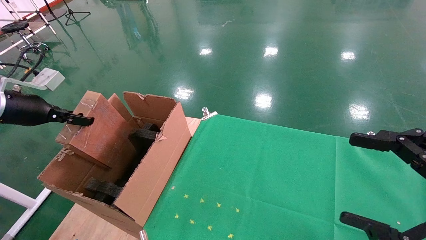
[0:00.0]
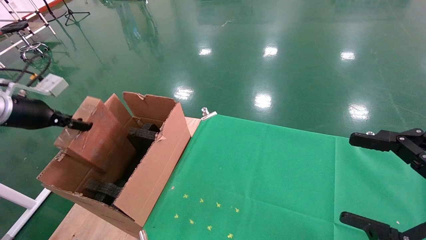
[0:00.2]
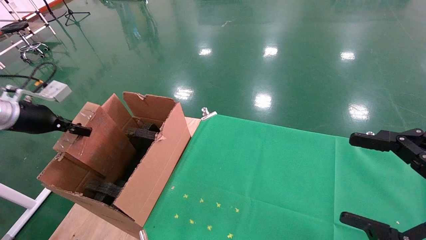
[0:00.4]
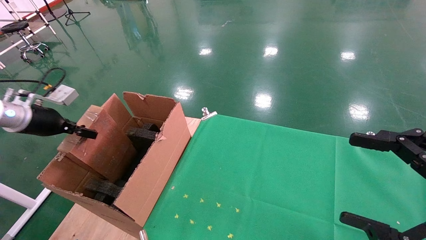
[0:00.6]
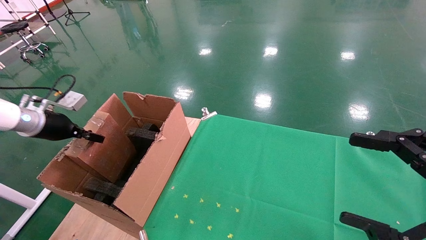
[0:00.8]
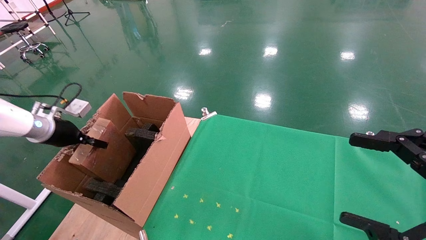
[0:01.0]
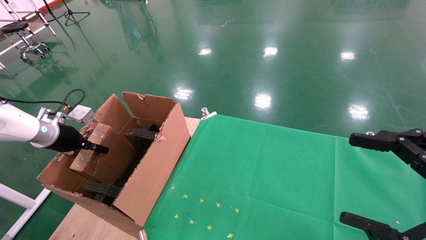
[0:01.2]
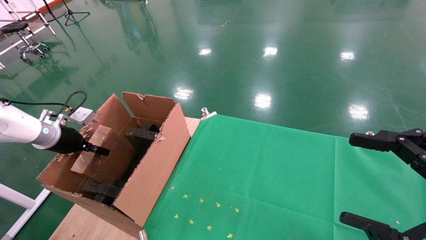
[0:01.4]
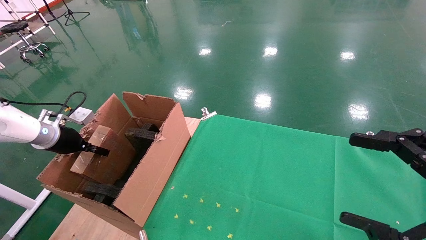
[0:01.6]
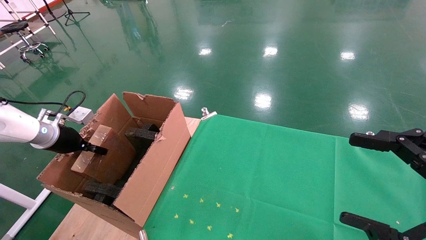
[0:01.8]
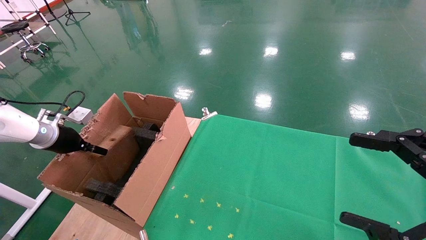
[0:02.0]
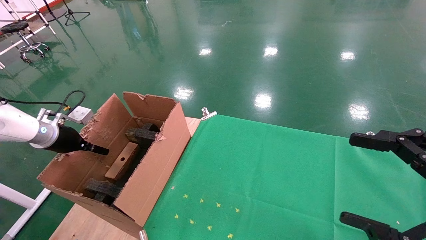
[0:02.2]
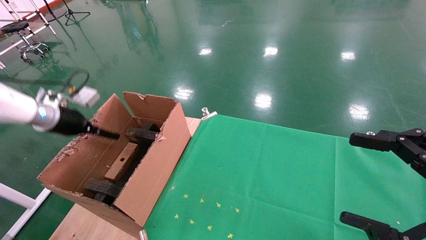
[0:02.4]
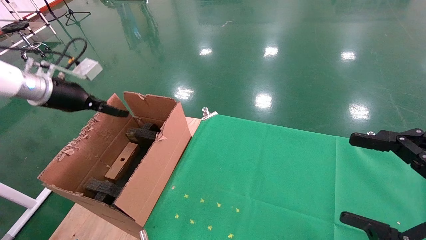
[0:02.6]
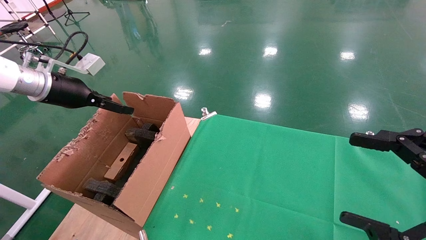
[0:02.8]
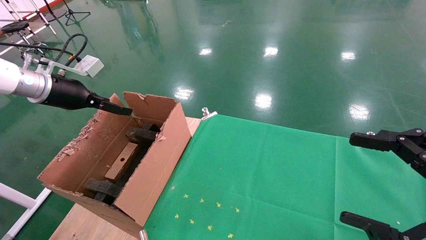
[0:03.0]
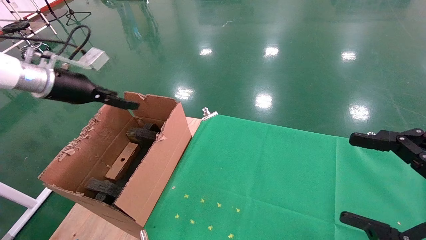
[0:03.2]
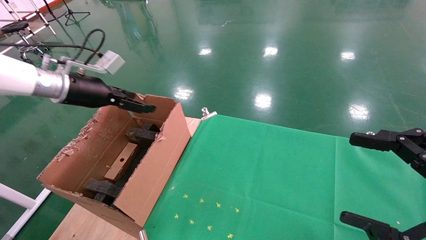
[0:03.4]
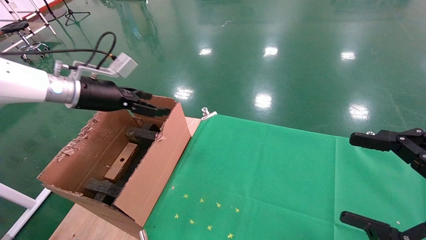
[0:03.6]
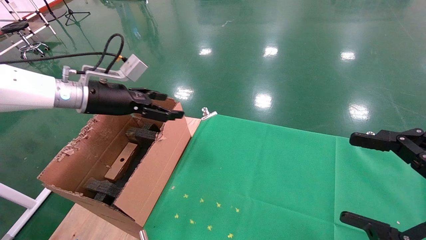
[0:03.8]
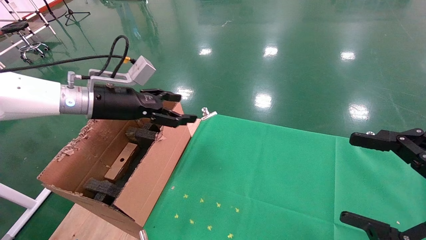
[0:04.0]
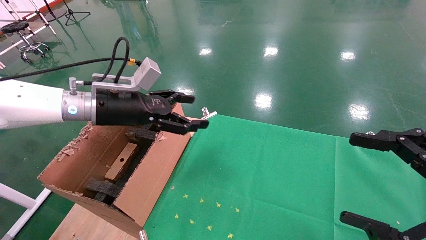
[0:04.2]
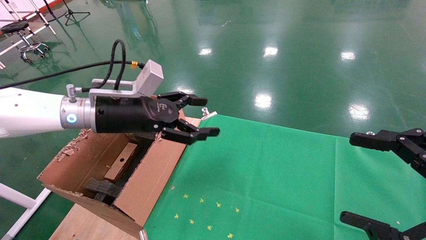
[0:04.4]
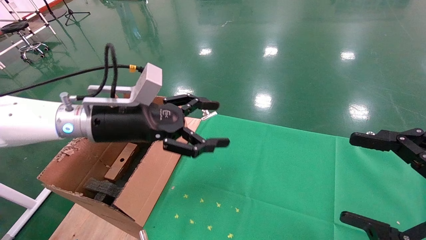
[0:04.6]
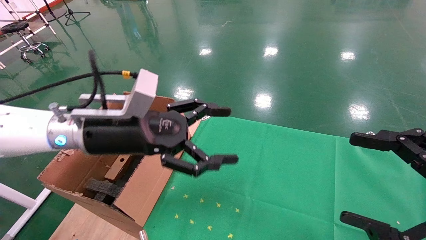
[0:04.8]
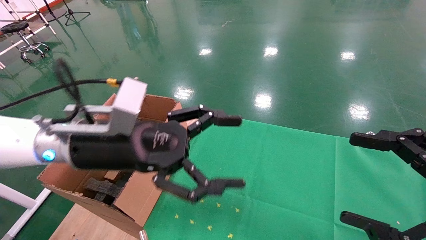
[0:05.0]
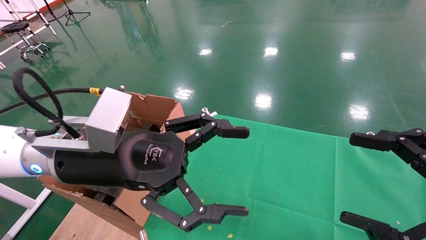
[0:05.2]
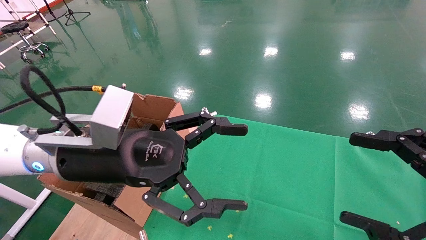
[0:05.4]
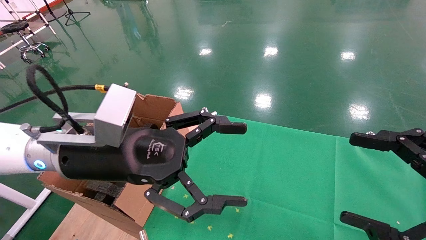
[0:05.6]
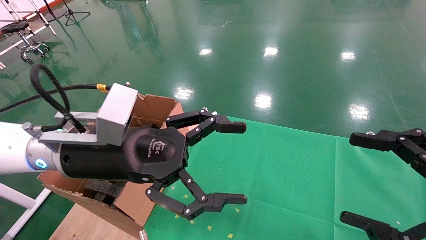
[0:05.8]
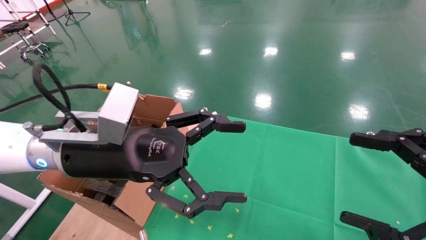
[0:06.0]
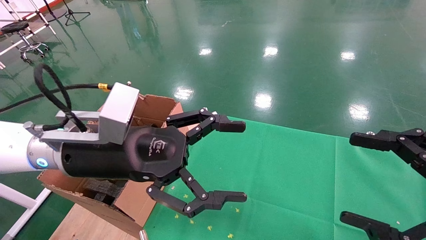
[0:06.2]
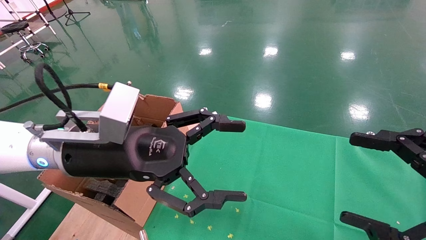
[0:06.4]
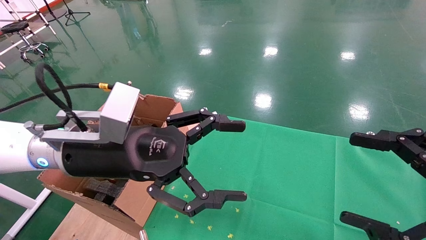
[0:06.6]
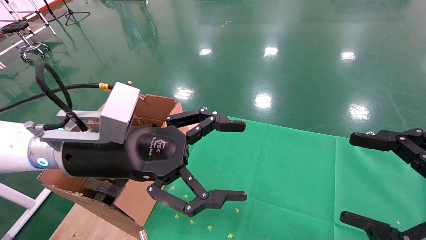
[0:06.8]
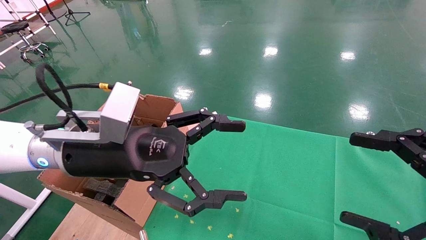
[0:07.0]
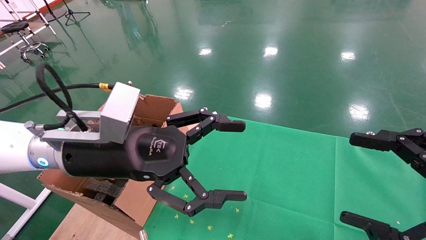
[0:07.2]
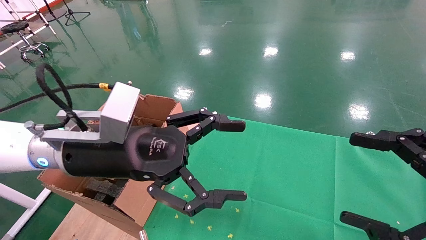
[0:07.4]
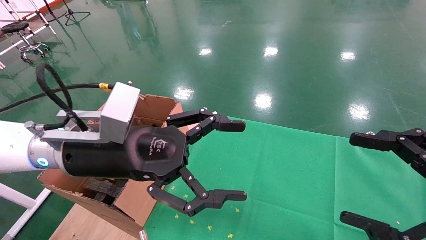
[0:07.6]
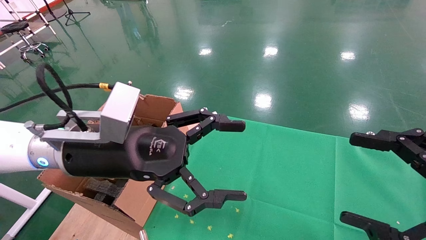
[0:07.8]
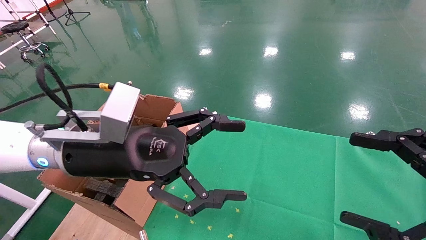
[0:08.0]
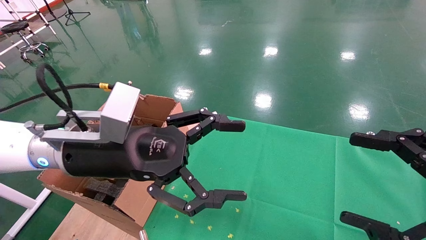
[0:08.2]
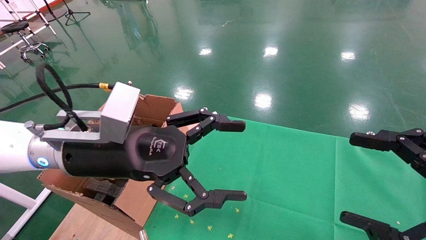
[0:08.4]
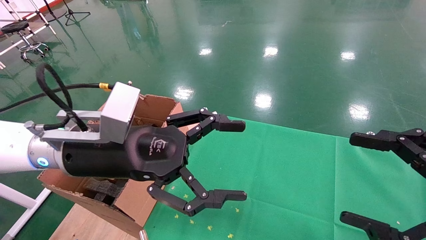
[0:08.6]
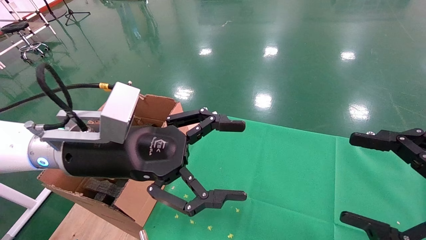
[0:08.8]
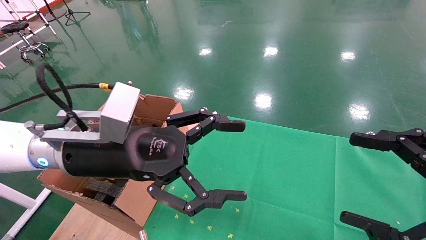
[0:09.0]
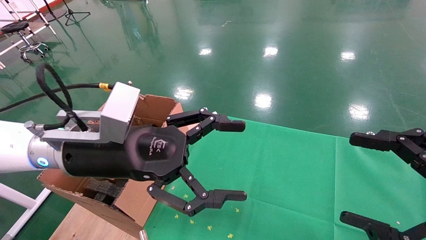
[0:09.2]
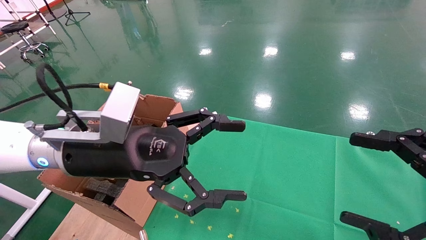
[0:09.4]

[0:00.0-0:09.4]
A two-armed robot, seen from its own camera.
Task of the whole recording: using a robotic arm to pick up a cardboard box and palace it the carton.
Step, 0:00.0 to 0:01.8: Place the mouse and the power cord paper box into the container.
0:00.0 to 0:01.6: The left gripper moves downward and forward, approximately 15 cm.
0:01.6 to 0:03.2: The left gripper shifts approximately 15 cm upward and to the right, and opens up.
0:03.2 to 0:04.8: The left gripper goes roughly 20 cm to the right and backward.
0:04.8 to 0:06.2: There are only small adjustments of the grippers.
0:06.2 to 0:09.4: The two grippers keep their place.

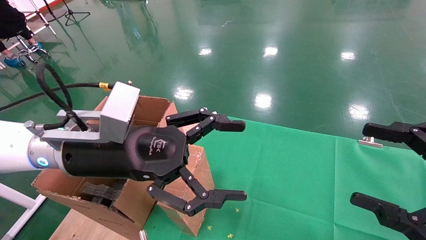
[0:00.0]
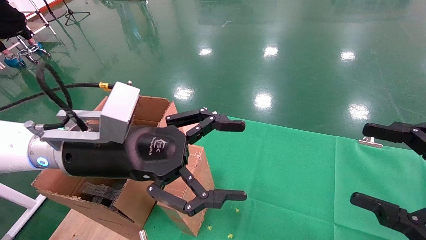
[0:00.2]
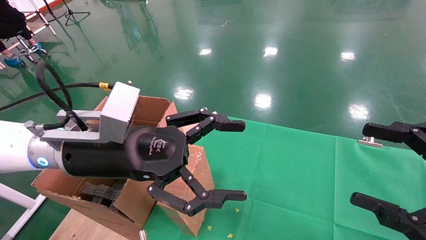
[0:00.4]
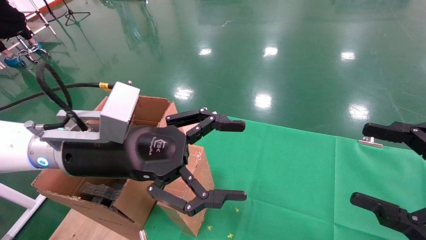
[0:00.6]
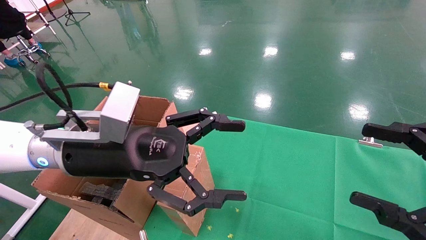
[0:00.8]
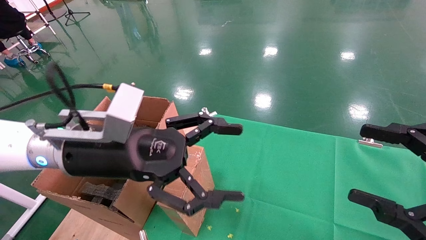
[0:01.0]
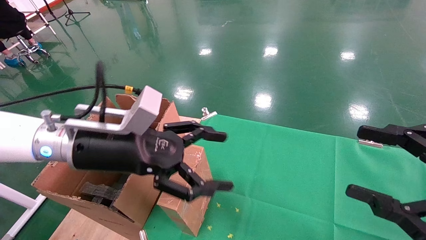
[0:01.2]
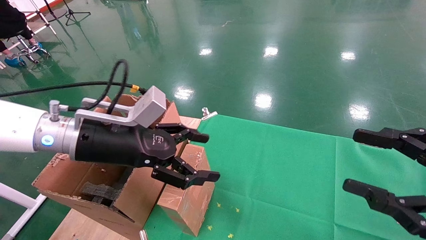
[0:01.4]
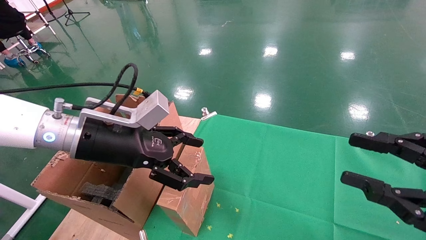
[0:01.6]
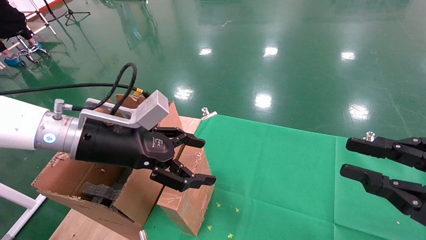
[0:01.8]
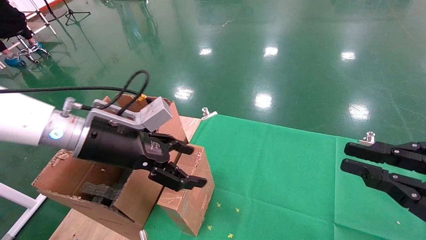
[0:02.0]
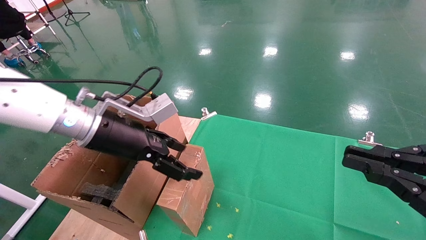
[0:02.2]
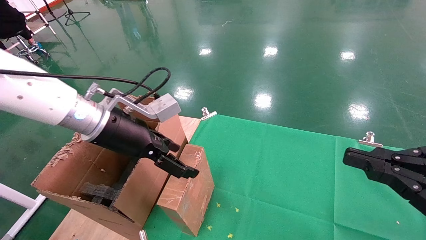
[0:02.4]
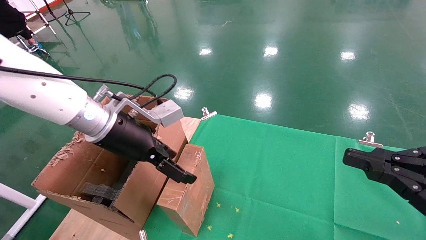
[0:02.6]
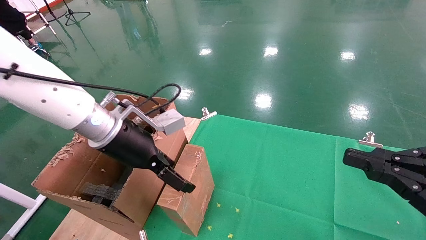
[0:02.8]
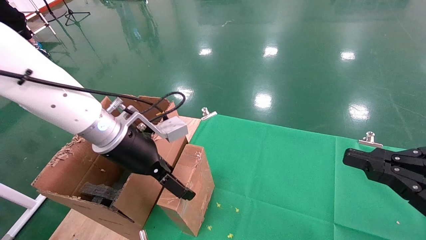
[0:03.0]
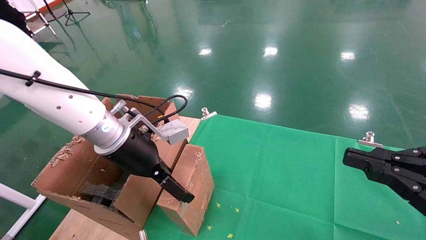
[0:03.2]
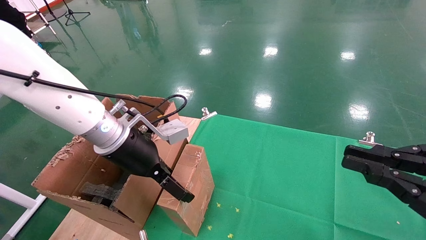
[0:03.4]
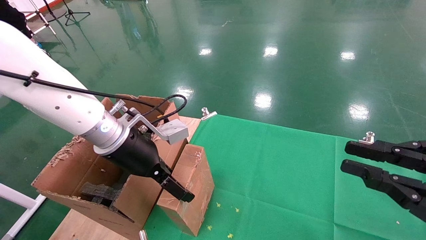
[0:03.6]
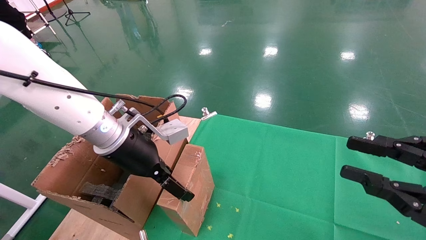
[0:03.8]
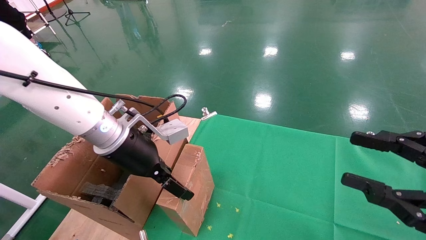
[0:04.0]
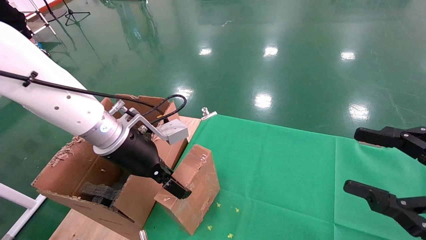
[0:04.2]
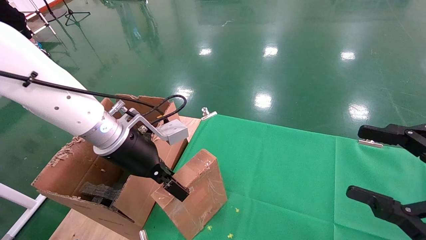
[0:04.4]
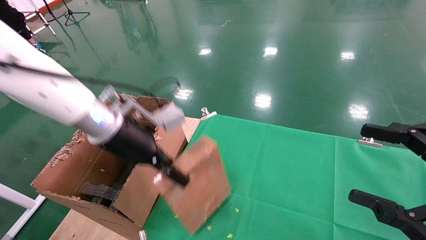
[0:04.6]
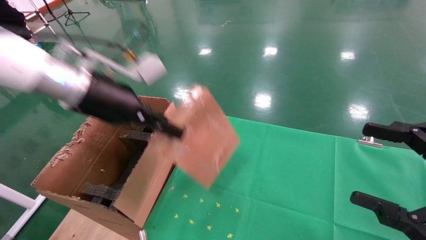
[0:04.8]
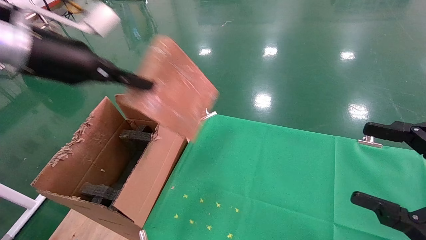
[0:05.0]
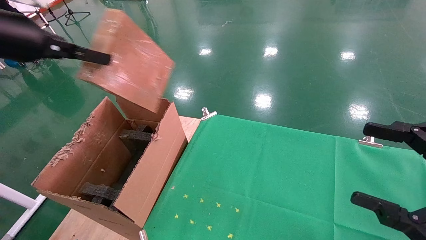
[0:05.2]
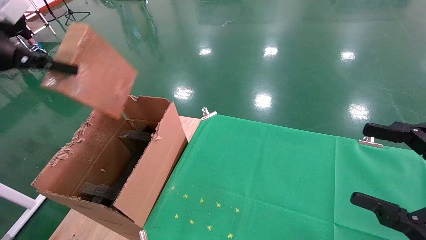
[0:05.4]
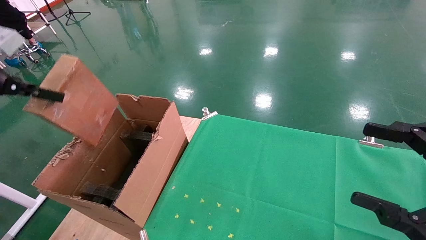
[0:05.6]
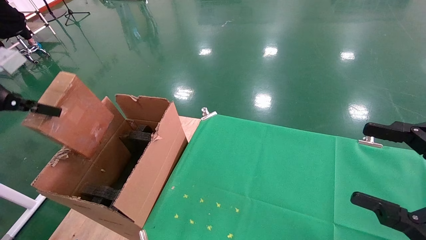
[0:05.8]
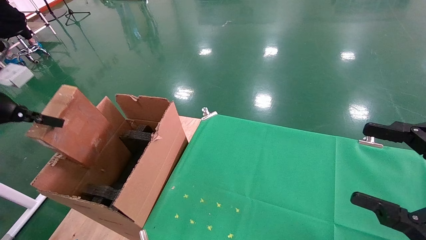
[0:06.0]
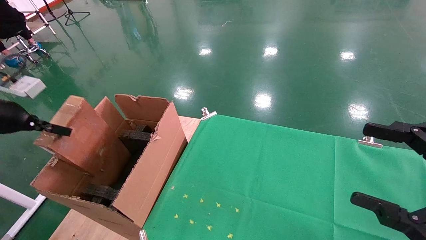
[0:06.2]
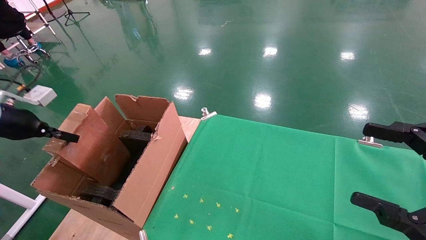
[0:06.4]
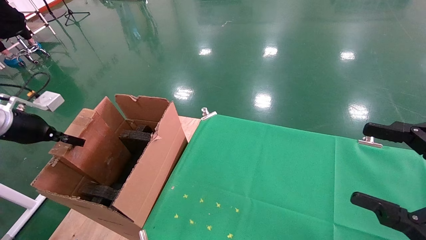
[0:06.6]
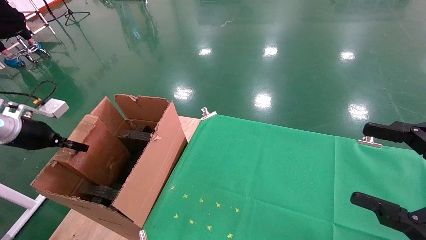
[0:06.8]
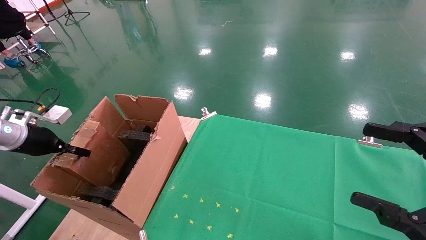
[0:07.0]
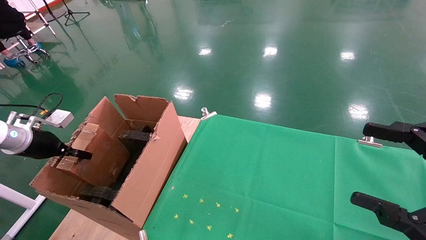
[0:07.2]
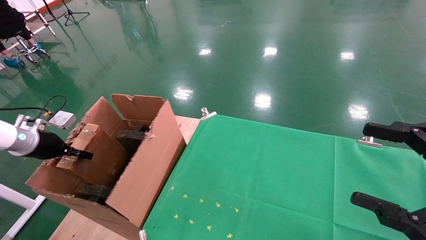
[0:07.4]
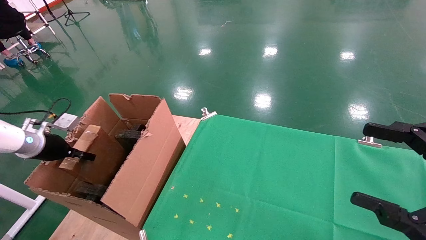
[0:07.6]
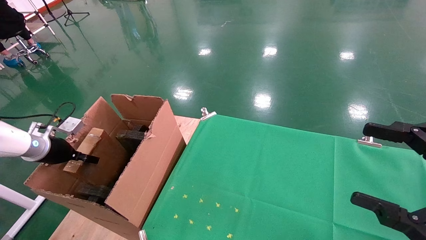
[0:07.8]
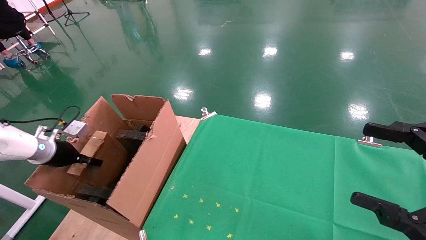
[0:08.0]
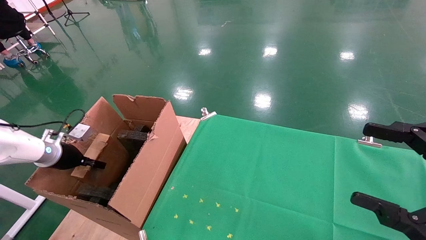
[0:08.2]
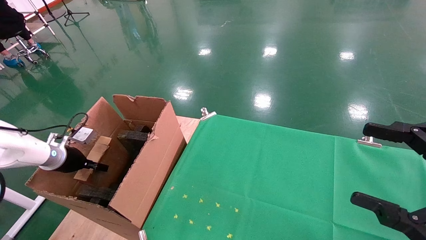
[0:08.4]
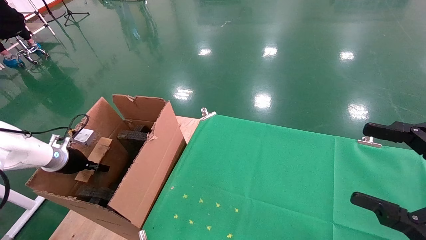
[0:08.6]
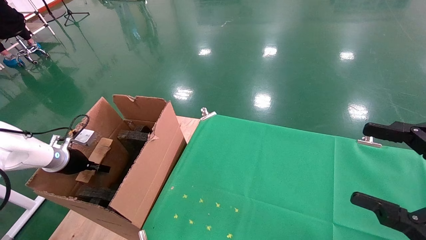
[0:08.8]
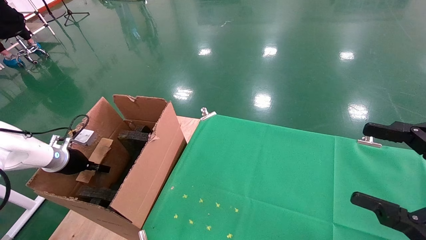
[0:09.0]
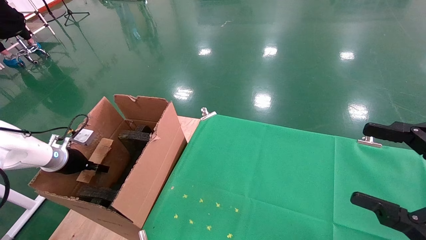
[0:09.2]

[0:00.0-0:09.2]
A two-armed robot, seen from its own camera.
Task of the whole recording: using a robotic arm to pick up a cardboard box and palace it the carton.
Step, 0:01.0 to 0:04.4: Pick up the mouse and the power cord paper box.
0:00.0 to 0:01.6: The right gripper closes.
0:01.6 to 0:03.0: The right gripper closes.
0:03.0 to 0:04.6: The right gripper opens its fingers; the left gripper closes up.
0:04.6 to 0:06.2: The left gripper travels to the left by roughly 30 cm.
0:06.2 to 0:07.6: The left gripper shifts approximately 15 cm downward and forward.
0:07.6 to 0:09.2: The left gripper heads downward, covering roughly 5 cm.
